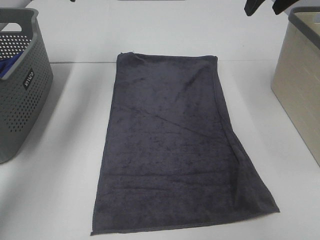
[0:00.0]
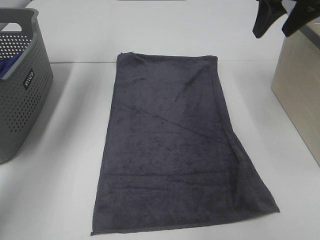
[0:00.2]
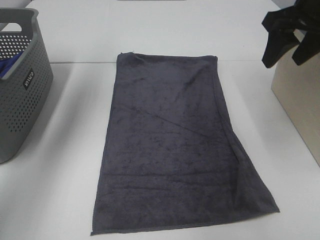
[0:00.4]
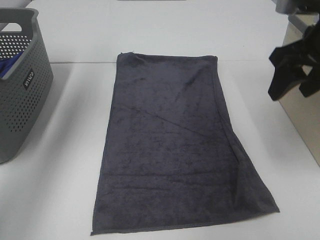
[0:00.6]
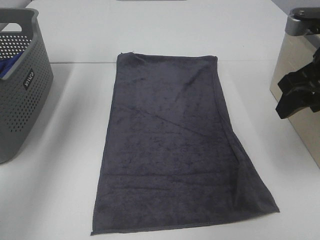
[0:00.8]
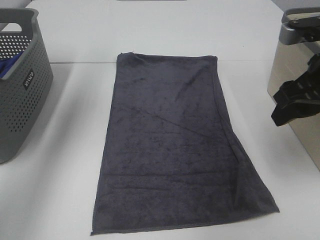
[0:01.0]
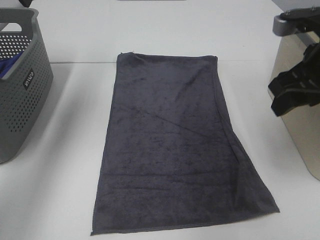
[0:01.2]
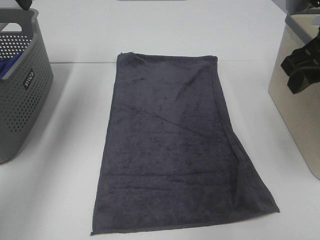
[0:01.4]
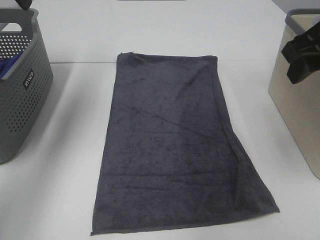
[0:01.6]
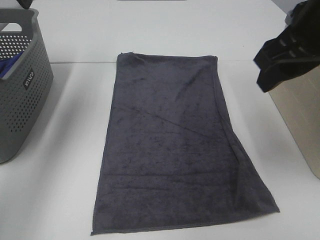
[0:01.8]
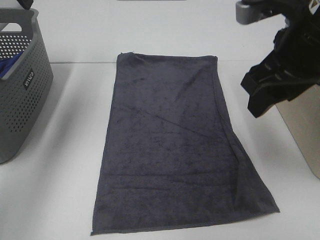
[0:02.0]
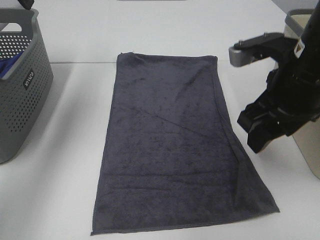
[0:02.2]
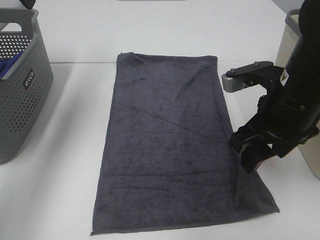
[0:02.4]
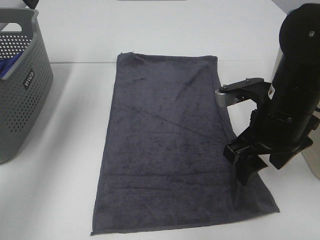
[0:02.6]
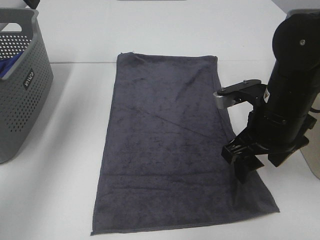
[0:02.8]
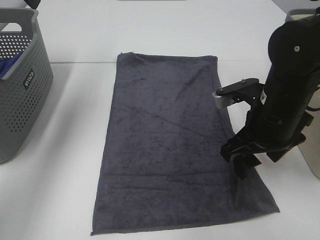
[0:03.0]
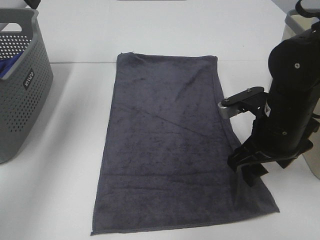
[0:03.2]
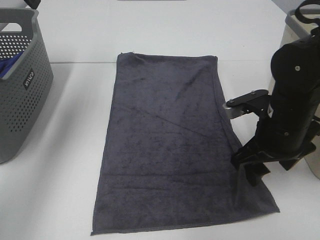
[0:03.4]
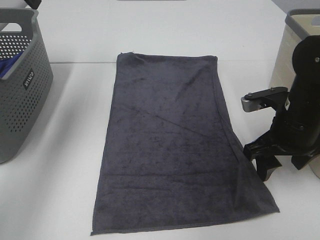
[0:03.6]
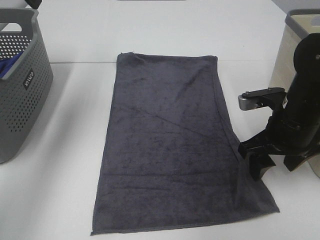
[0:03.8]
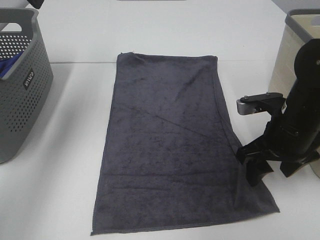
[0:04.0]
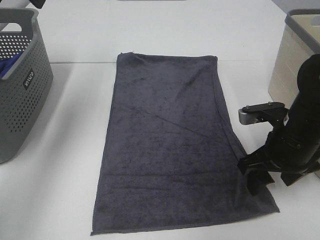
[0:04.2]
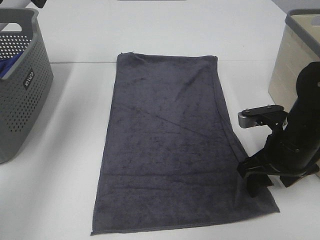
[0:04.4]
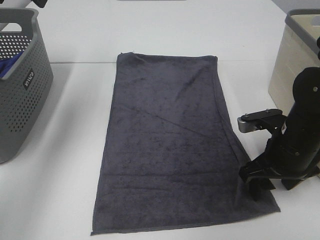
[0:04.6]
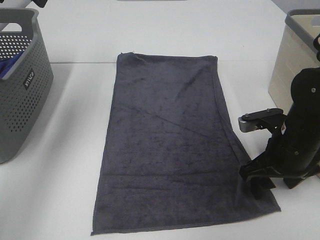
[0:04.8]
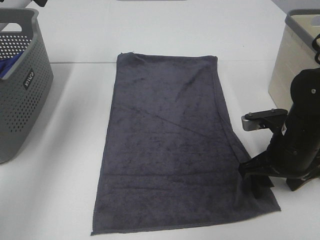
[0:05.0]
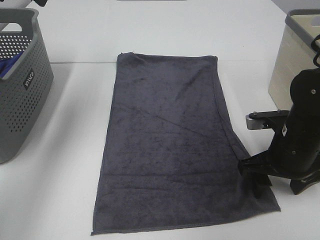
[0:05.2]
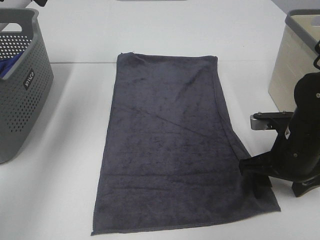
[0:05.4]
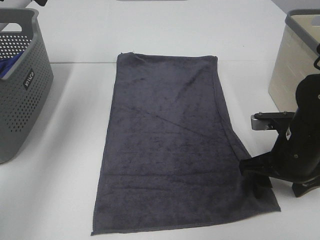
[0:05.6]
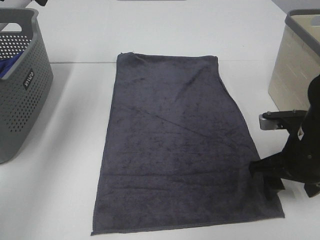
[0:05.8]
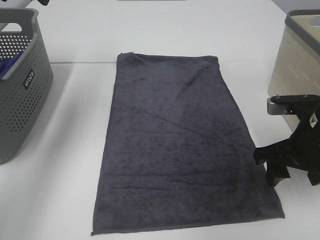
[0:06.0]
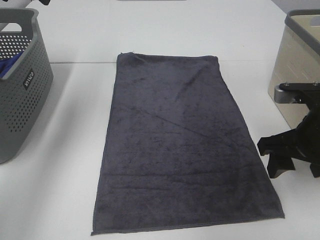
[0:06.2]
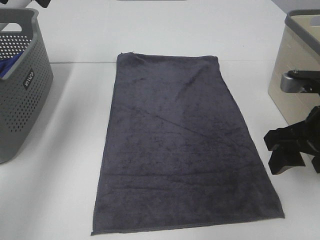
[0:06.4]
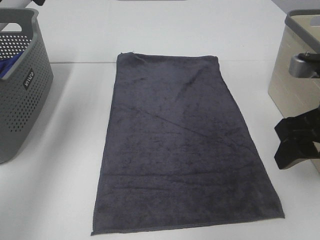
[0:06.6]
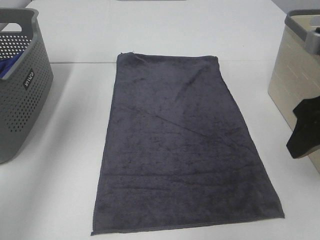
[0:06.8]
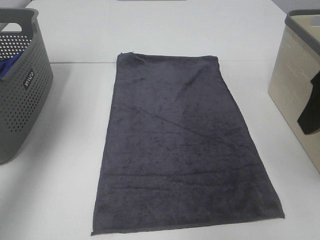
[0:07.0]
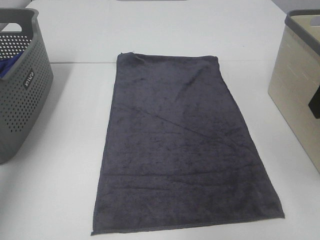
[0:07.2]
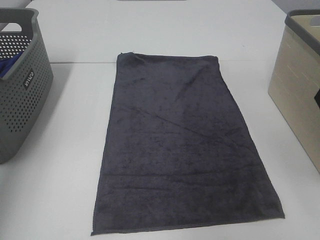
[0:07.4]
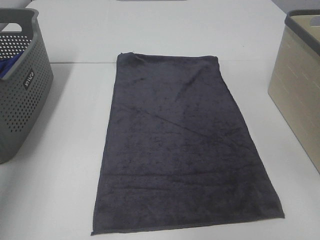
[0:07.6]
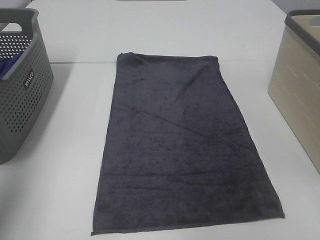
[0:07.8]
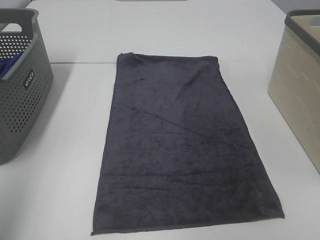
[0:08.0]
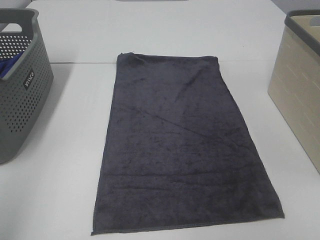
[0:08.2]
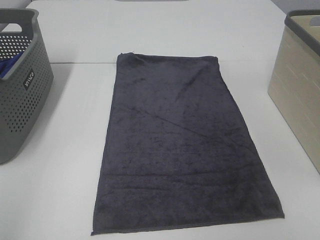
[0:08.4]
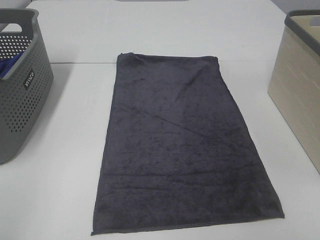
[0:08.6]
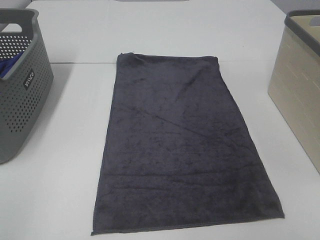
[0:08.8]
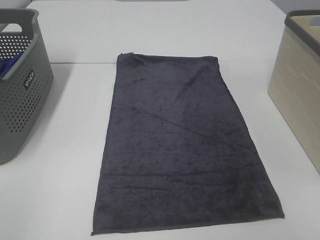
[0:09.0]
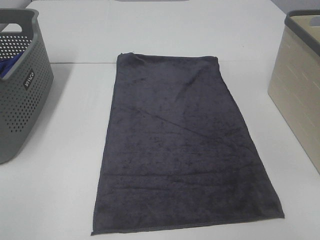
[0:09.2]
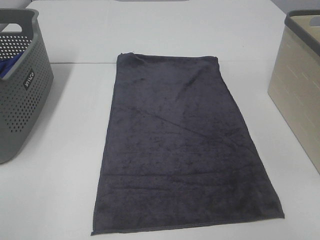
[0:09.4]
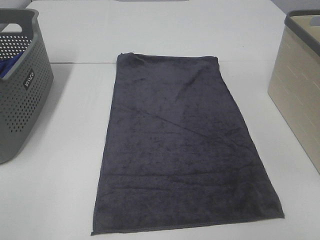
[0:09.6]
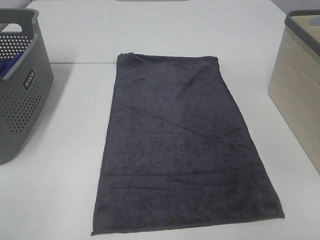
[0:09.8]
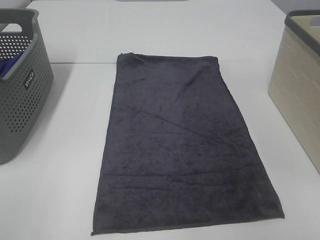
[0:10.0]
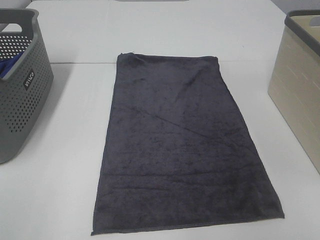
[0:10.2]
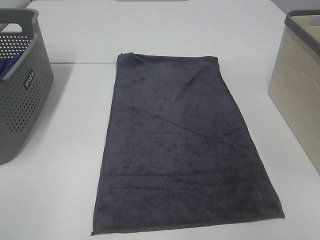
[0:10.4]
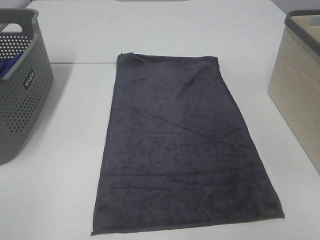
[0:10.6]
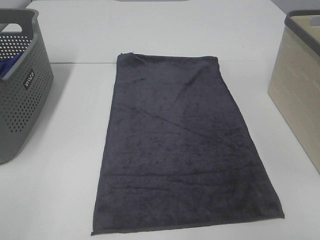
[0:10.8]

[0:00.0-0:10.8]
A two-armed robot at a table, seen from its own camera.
Task of the whole recording: Remove the towel and place it.
0:00.0 to 0:01.6: The right gripper moves backward, some 15 cm. The left gripper is displaced backward by approximately 10 cm.
0:01.6 to 0:03.0: The right gripper shifts approximately 15 cm downward.
0:03.0 to 0:04.6: The right gripper heads downward, covering about 5 cm.
0:04.6 to 0:06.2: The right gripper travels upward by roughly 5 cm.
0:06.2 to 0:07.8: The right gripper shifts some 25 cm upward and backward. The left gripper is displaced backward and to the left by approximately 25 cm.
0:07.8 to 0:09.2: The left gripper shifts some 20 cm backward and downward.

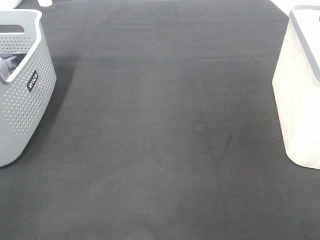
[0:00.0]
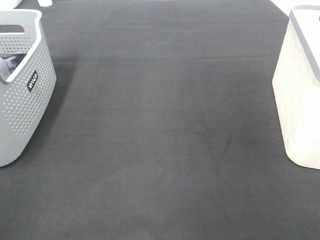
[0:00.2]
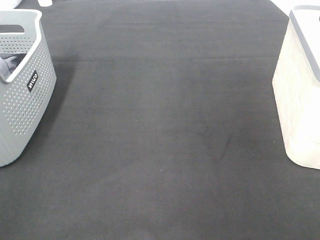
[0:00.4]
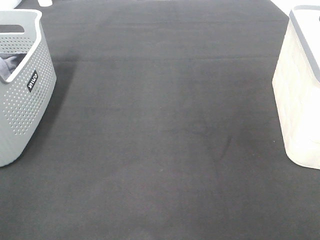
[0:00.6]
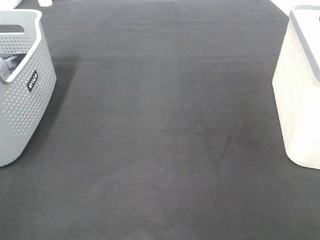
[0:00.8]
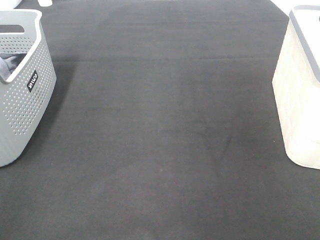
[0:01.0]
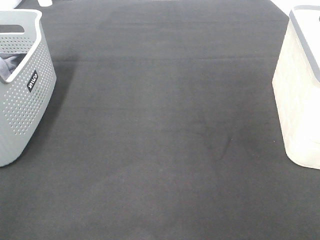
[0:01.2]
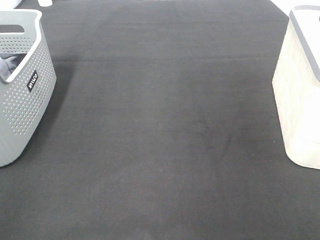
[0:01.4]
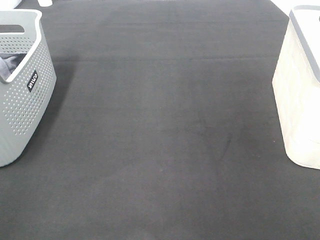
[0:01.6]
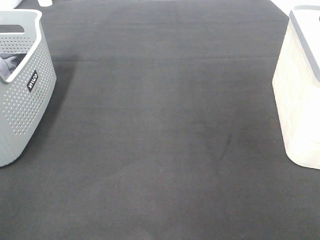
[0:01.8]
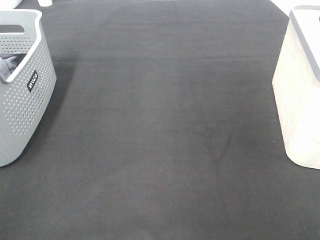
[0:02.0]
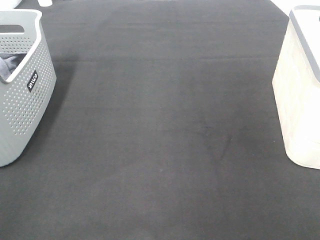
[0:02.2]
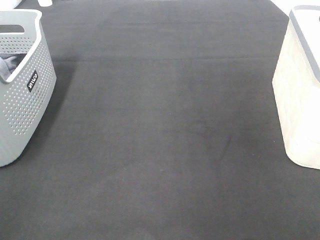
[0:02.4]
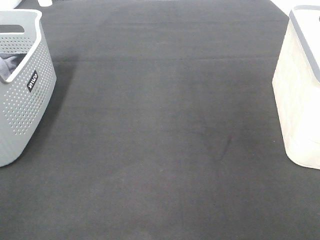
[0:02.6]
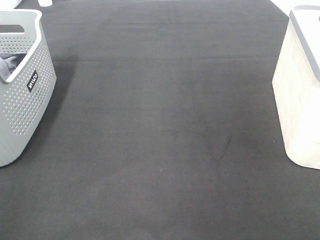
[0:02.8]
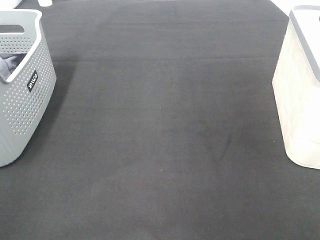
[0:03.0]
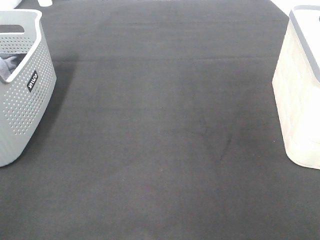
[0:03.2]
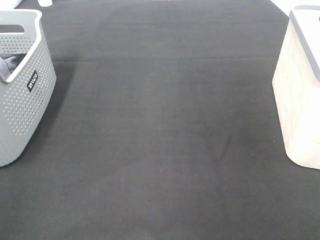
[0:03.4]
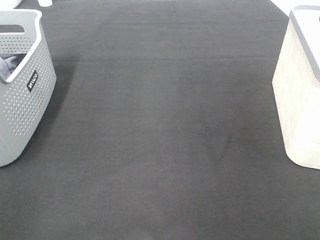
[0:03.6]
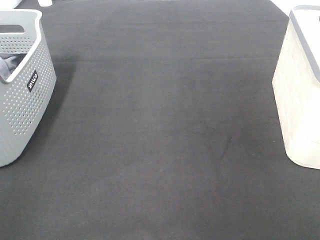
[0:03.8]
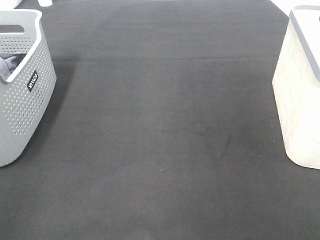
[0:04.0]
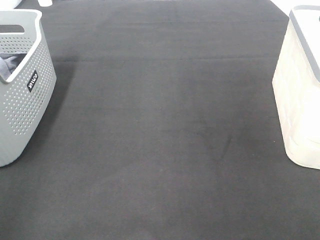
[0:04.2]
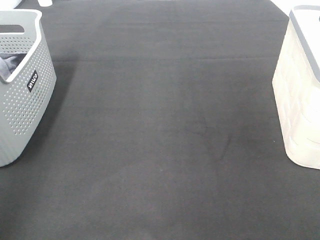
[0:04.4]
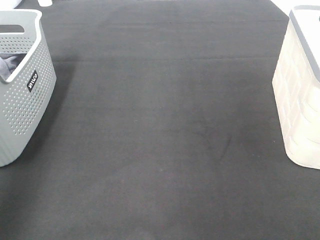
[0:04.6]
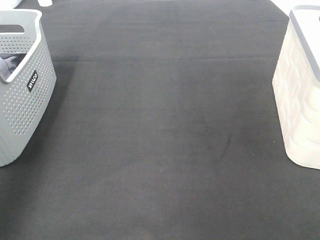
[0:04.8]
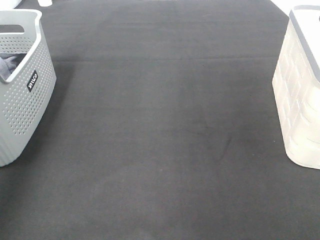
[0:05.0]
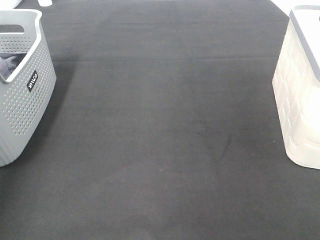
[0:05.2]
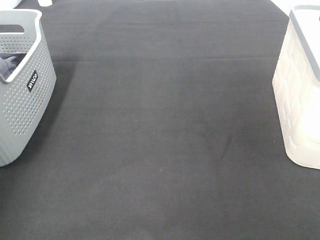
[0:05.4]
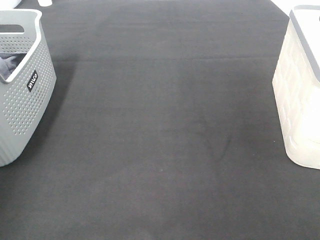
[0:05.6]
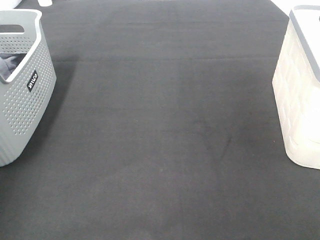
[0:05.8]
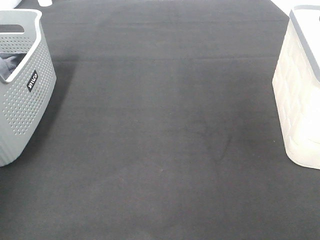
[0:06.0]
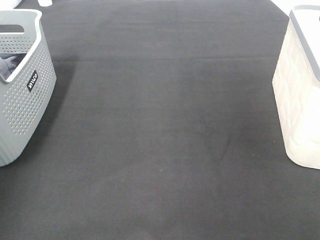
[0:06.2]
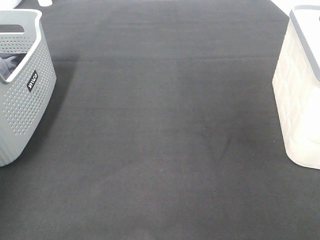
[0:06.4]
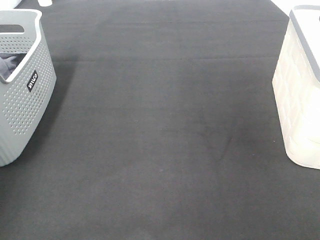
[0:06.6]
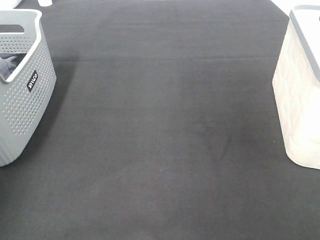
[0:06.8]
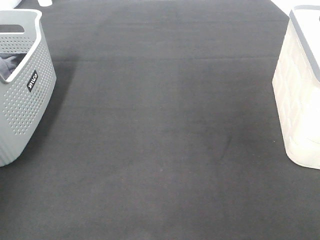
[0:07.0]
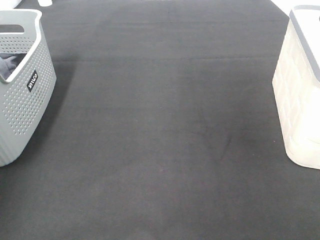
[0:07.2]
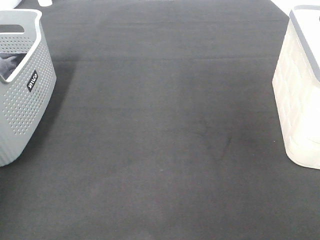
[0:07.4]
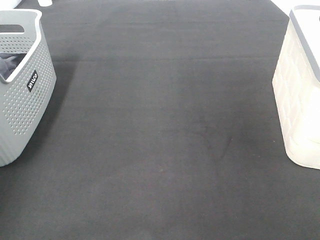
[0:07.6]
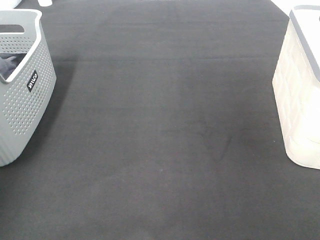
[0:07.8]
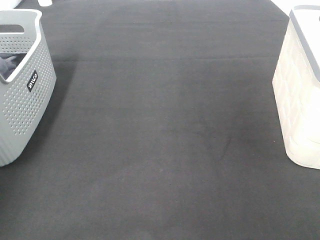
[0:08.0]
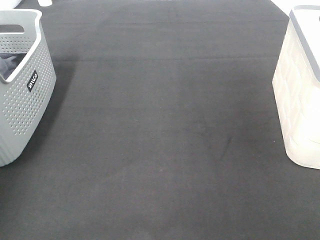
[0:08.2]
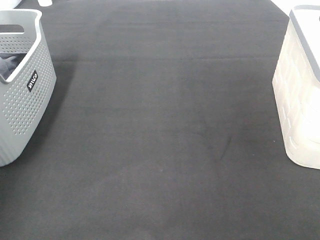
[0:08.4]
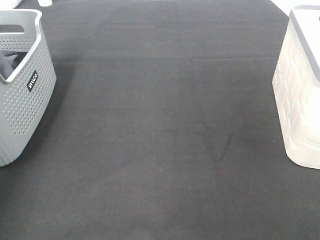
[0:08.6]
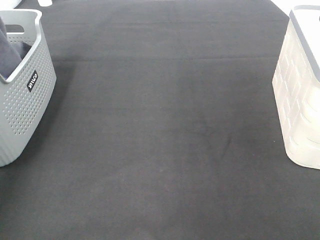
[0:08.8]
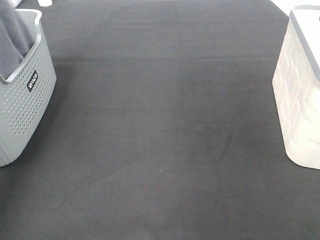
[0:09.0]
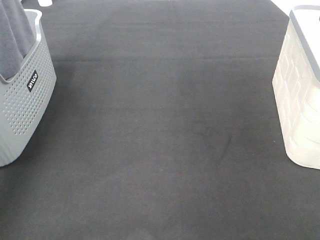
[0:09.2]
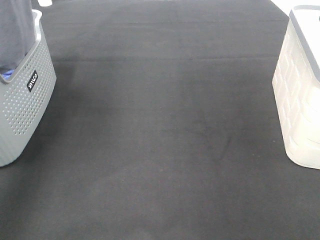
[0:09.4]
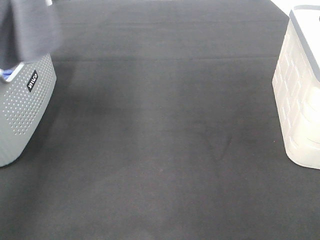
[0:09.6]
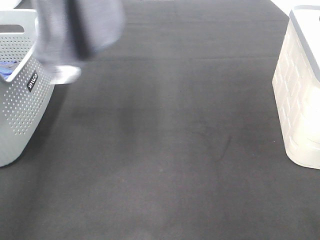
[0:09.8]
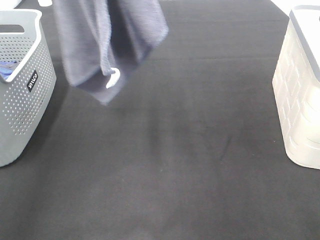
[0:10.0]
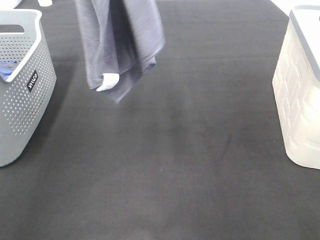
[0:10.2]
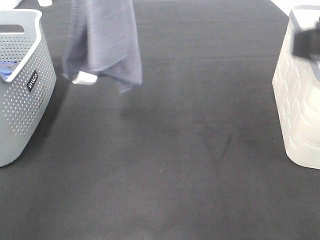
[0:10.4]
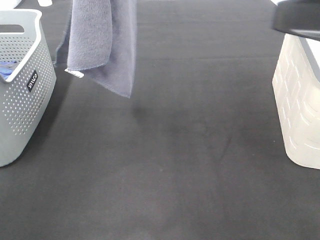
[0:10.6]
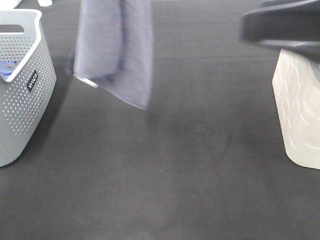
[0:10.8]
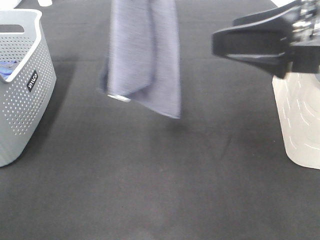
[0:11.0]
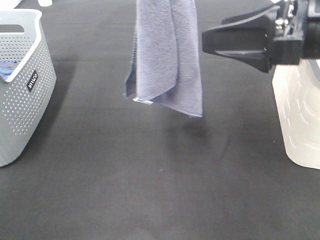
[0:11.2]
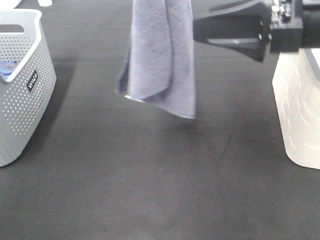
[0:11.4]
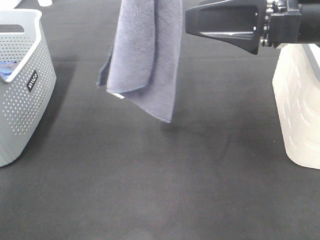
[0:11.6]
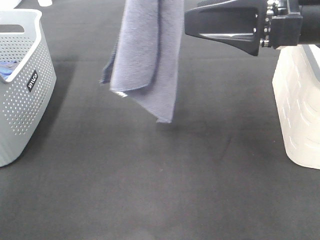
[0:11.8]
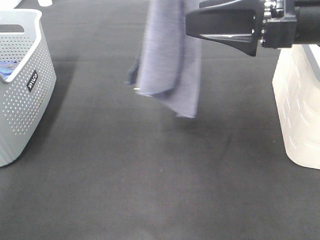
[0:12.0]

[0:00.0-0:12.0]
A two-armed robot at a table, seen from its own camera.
Task of the whole recording: Remove the towel and place it.
0:00.0 to 0:03.0: Neither gripper changes place.
0:07.6 to 0:09.0: The left gripper heads upward, covering some 25 cm.
0:09.0 to 0:10.4: The left gripper travels to the right and upward by approximately 15 cm. The right gripper is displaced forward and upward by approximately 15 cm.
0:10.4 to 0:12.0: The right gripper heads forward and to the left, covering approximately 10 cm. The left gripper heads to the right, covering about 10 cm.
